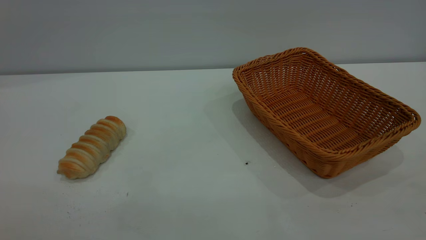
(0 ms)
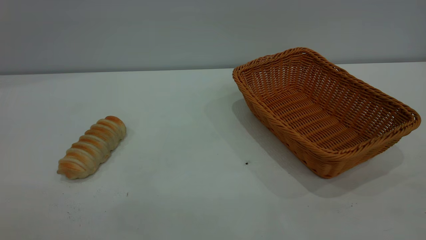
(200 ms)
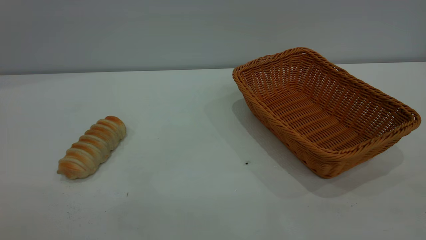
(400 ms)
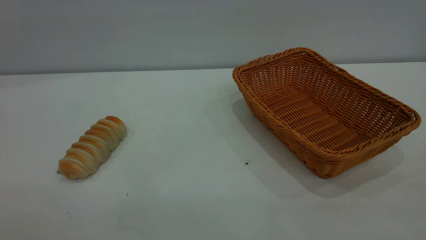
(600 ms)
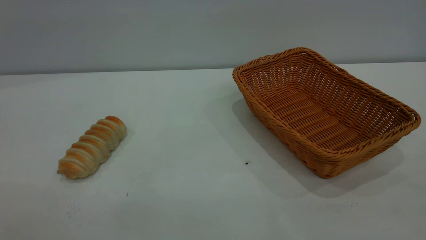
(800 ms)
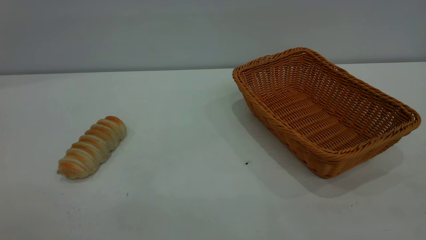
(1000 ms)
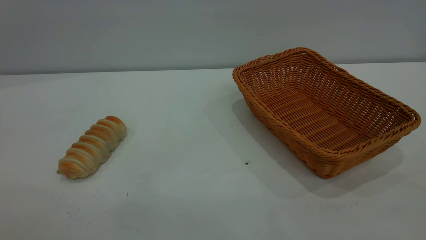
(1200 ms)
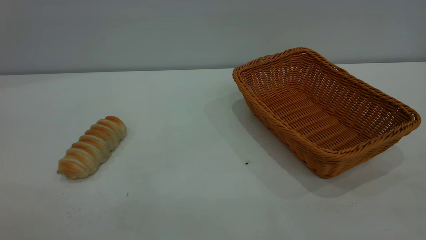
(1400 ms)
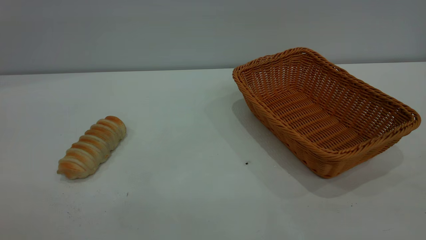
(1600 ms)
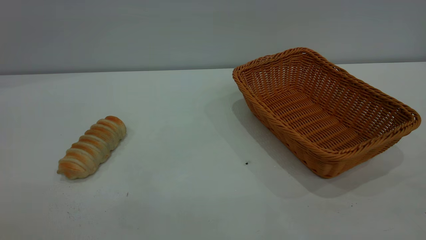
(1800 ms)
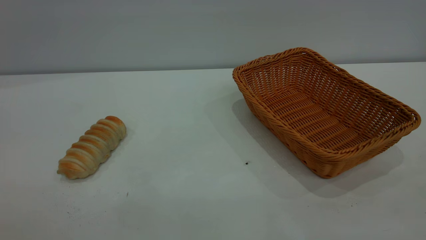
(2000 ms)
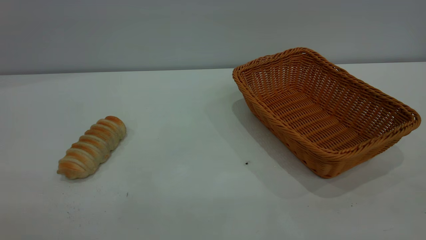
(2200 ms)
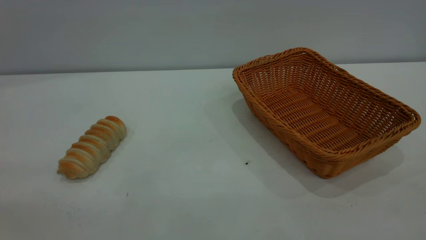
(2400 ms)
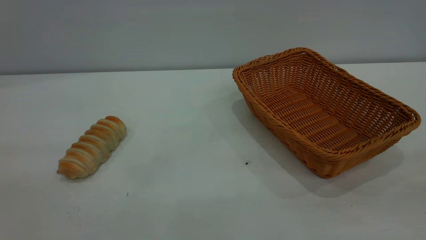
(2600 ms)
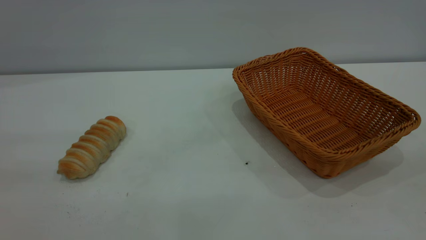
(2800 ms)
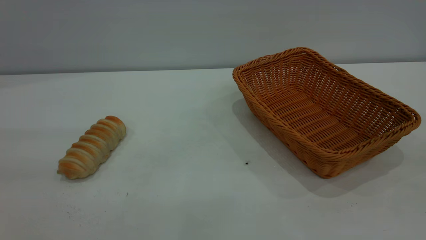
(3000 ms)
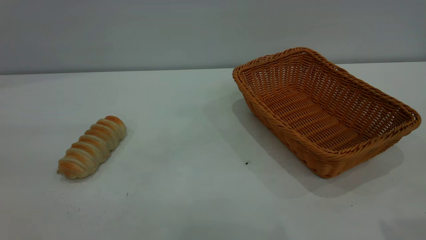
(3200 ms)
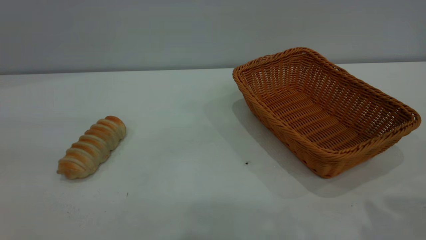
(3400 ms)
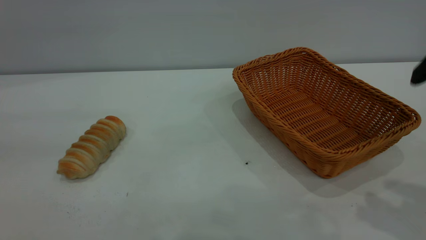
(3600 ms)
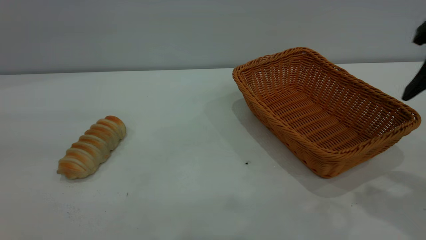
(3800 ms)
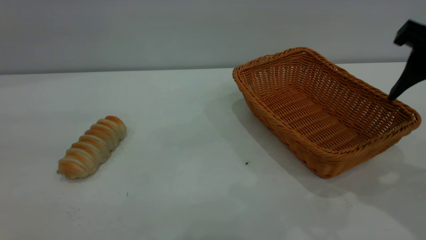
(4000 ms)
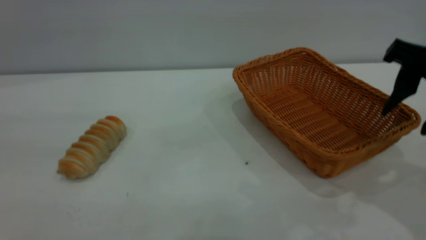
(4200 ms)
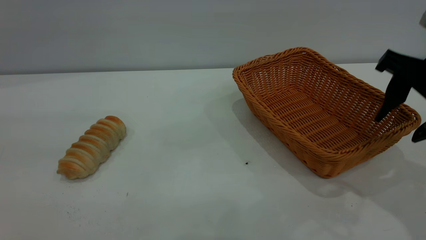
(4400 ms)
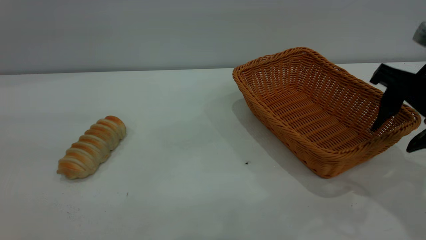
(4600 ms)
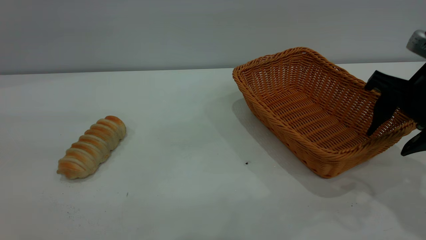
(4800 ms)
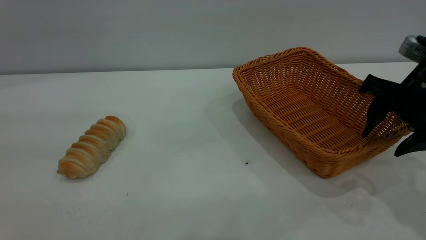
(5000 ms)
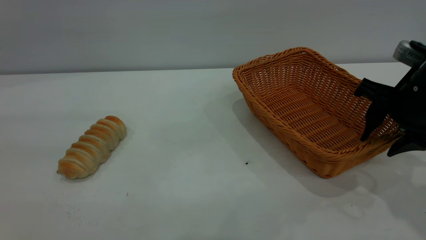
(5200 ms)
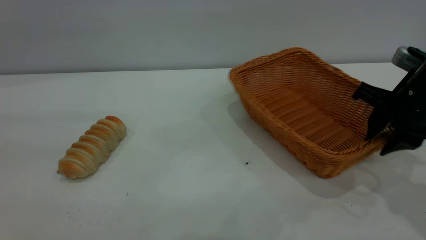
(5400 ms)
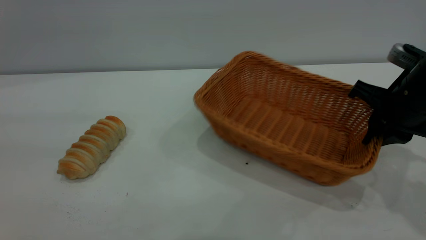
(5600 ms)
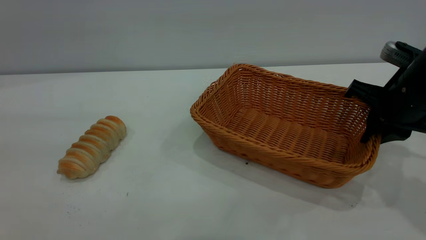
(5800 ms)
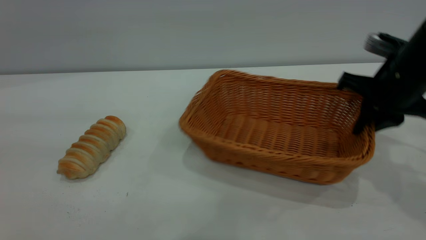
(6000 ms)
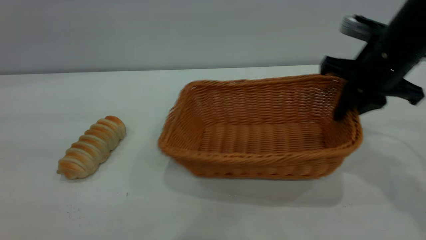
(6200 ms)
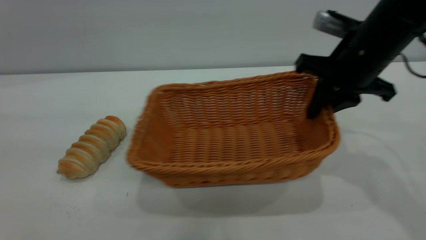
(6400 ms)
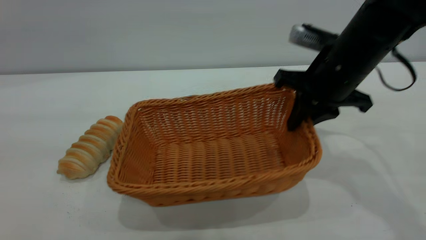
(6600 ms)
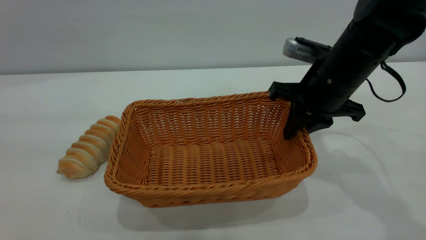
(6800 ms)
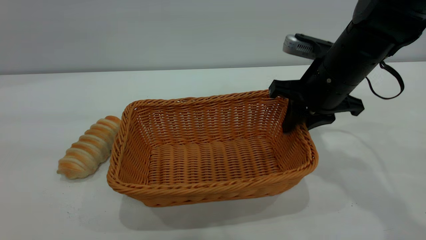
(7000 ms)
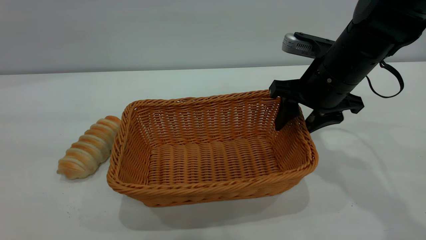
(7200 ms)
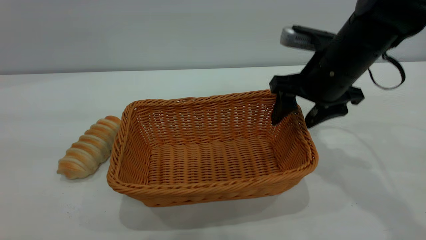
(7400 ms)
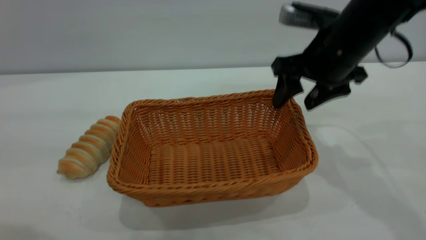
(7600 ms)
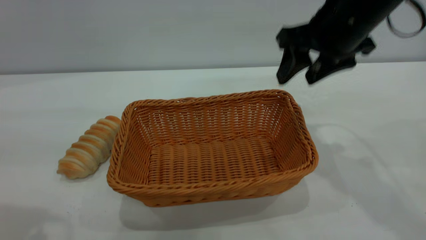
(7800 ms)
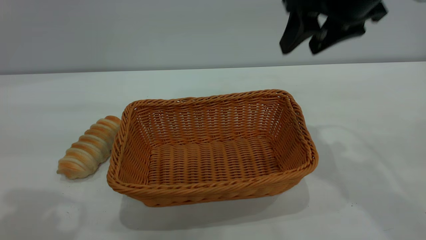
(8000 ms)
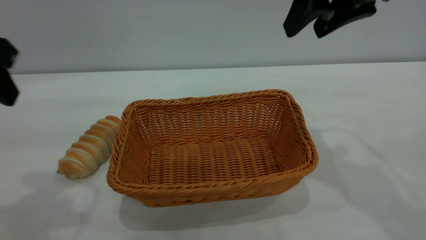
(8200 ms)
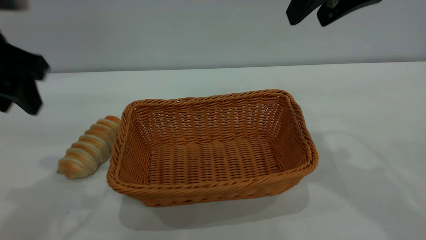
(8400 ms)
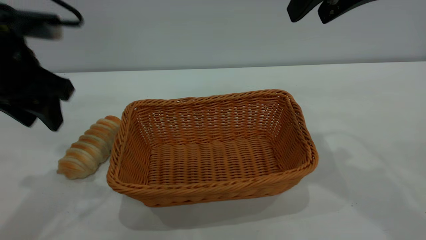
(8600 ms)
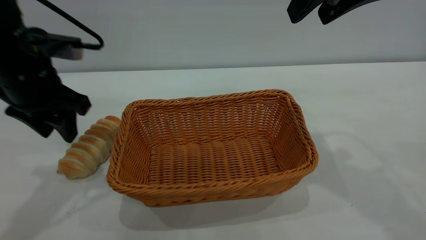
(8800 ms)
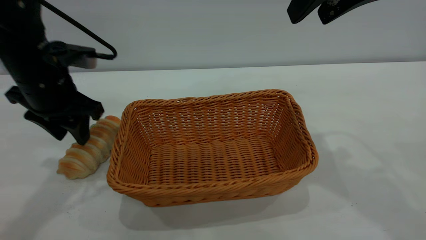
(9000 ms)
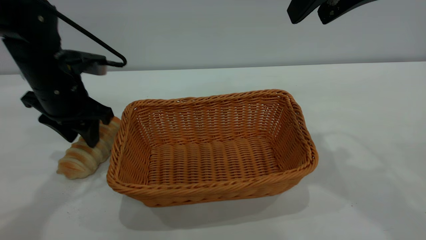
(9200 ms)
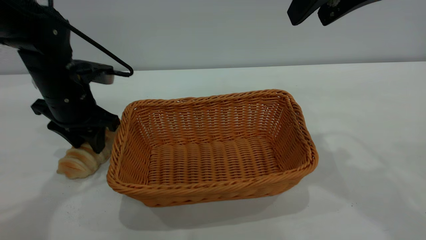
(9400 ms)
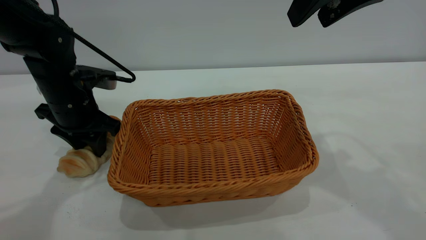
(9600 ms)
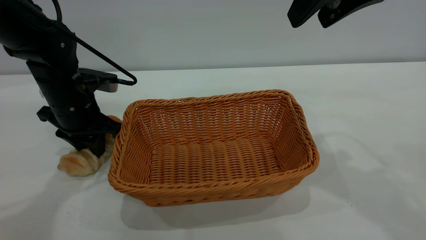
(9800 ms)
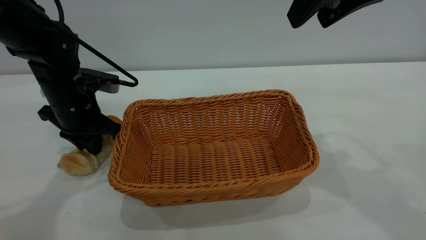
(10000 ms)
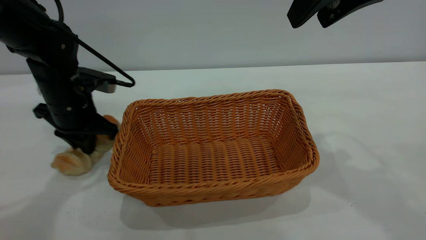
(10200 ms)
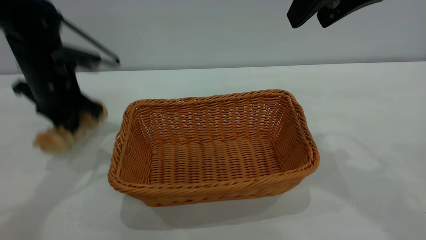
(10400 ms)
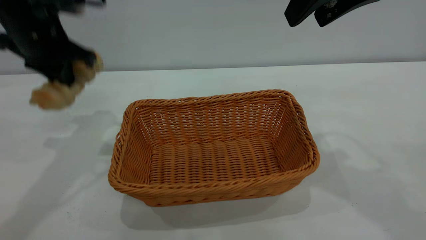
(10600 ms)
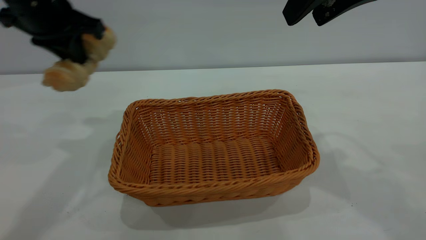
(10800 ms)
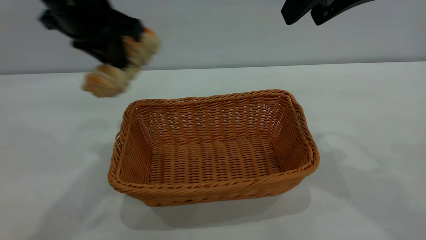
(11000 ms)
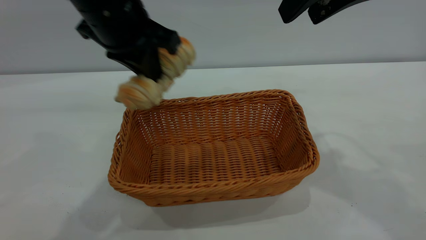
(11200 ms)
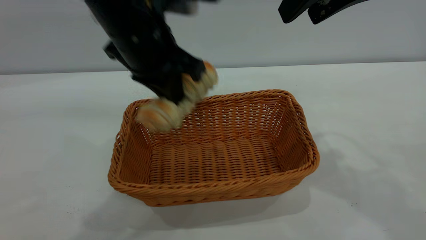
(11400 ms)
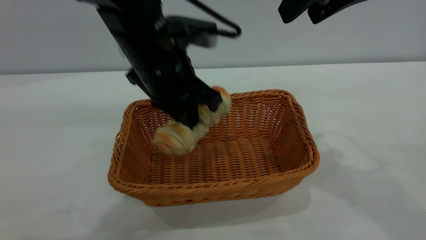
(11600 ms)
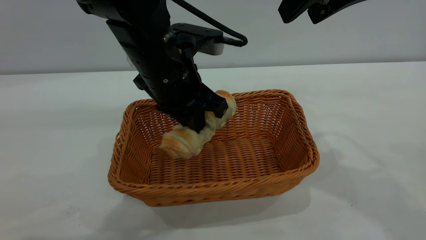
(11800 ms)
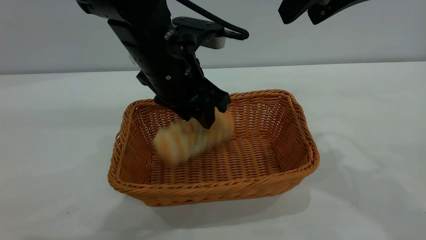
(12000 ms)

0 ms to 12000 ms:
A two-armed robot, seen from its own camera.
Task of the whole recording: One hand grasps the yellow basket and places it in the middle of the table, while the other hand picks up the long bread and puts it into the yellow basket.
Step, 0 ms to 7600 ms: Move the basket to the center of view.
0 ms to 1600 ms: The two grippers keep their place.
3000 ms to 4400 ms: The right gripper is displaced forward and downward by roughly 20 cm.
4400 ms to 6000 ms: The right gripper travels forward by some 5 cm, and closes up.
6000 ms to 7600 ms: The right gripper is displaced to the left by about 10 cm, and opens.
7600 ms to 9000 ms: The left gripper goes approximately 25 cm forward and downward, while the right gripper is displaced upward by about 15 cm.
9000 ms to 10400 ms: The left gripper closes.
10400 ms to 12000 ms: The left gripper shifts some 20 cm to the right, and opens up.

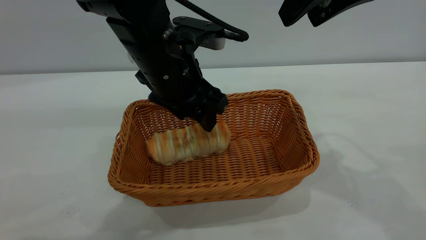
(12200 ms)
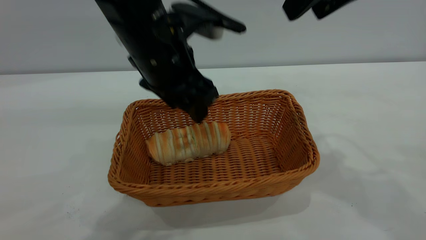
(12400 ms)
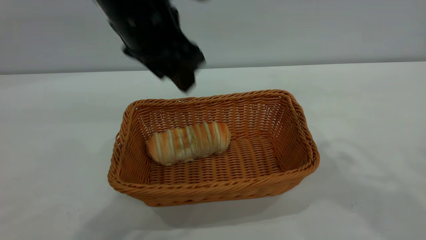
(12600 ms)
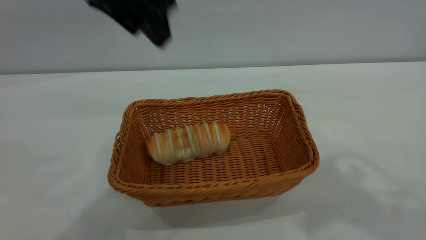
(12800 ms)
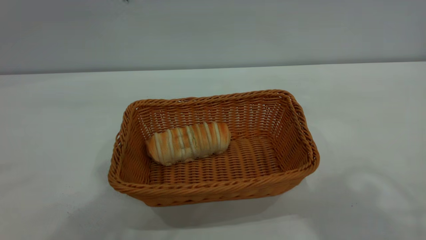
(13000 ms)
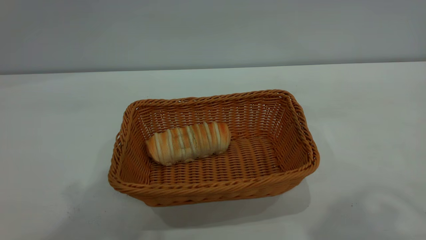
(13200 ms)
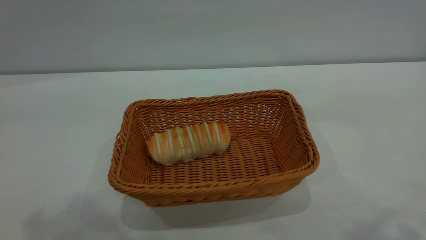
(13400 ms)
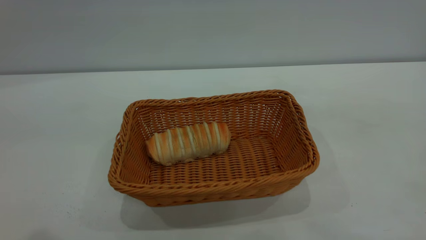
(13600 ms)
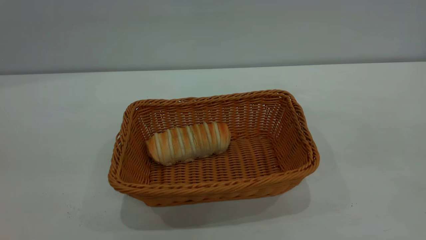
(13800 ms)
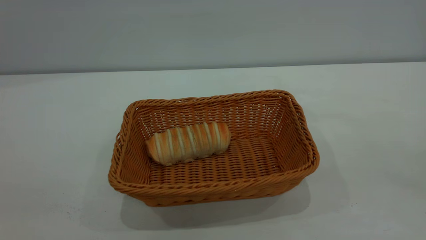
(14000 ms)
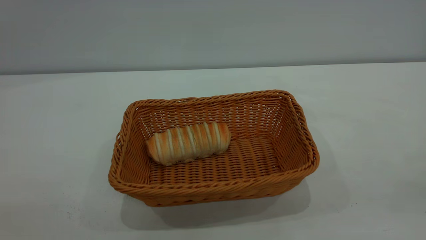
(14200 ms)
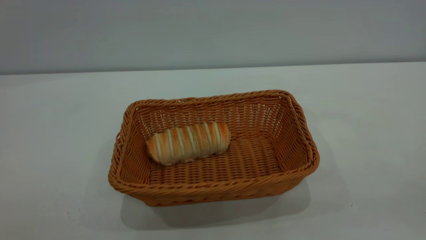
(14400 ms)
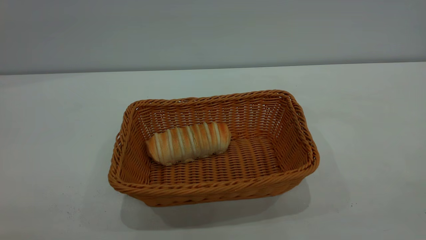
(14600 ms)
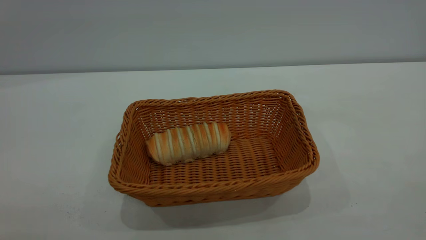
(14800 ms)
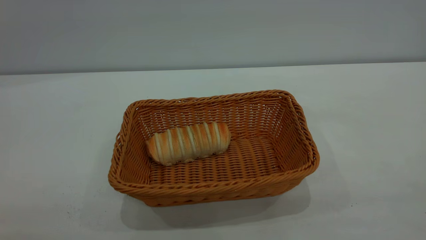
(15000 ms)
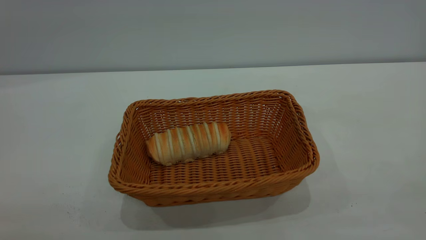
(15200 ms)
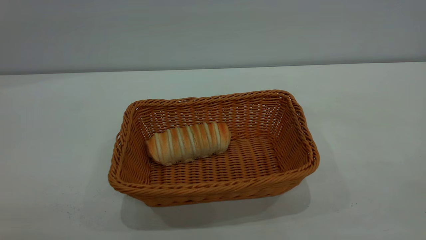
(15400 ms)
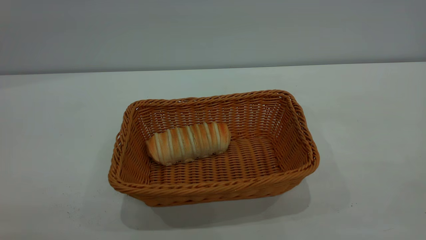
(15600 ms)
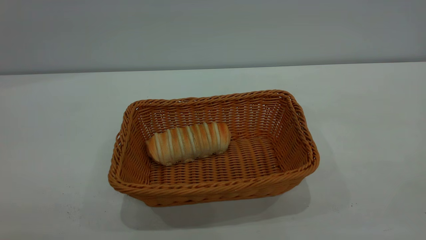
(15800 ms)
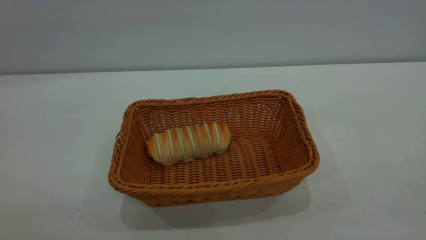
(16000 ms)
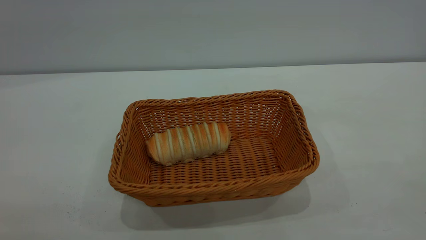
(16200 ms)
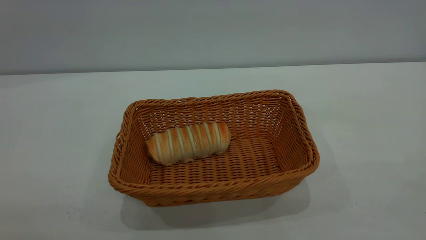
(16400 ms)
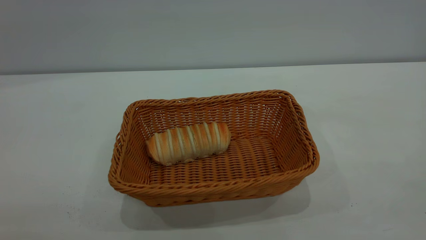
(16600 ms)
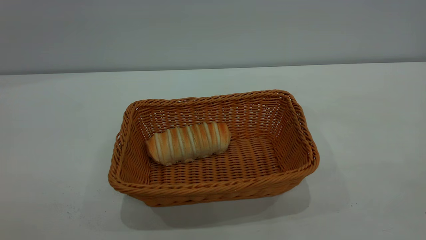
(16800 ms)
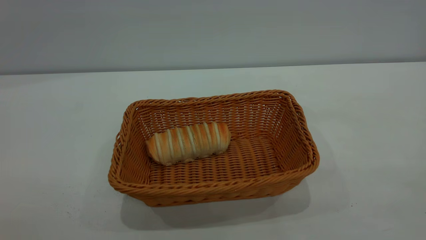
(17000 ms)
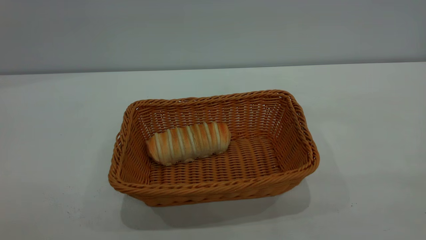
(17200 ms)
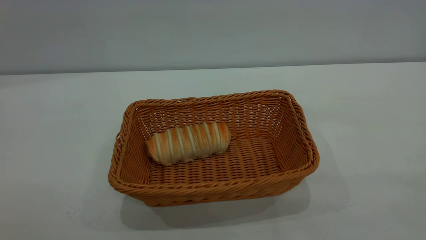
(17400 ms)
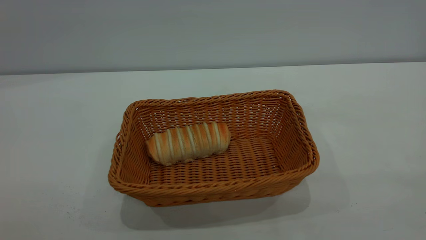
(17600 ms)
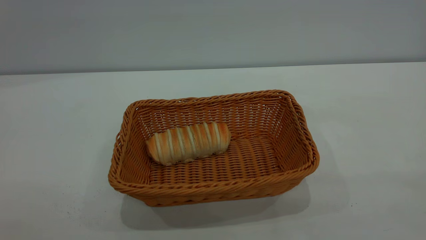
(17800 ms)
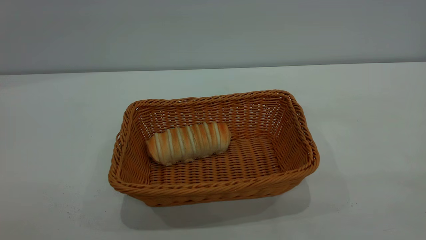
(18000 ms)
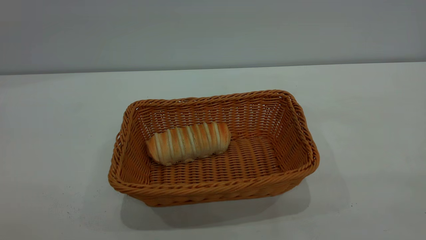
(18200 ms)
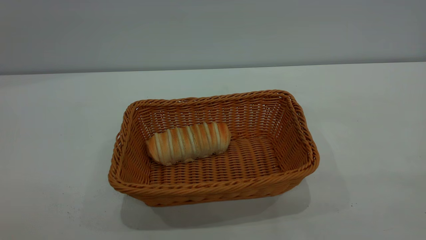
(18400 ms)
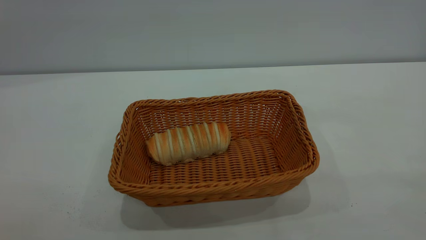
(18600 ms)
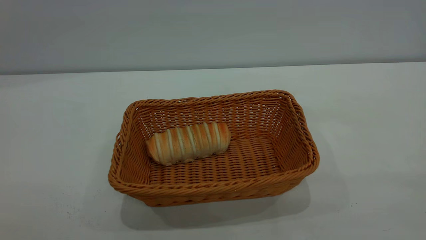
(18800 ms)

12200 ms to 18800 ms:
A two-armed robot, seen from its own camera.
Task of the whole recording: One hand grasps the yellow basket and places it in the middle of the table, while the other hand picks up the long bread and puts it into the yellow basket.
12200 ms to 13800 ms: The left gripper shifts some 40 cm backward, upward and to the left. Meanwhile the right gripper shifts approximately 25 cm backward and upward.
17200 ms to 18800 ms: Both grippers stay put.
